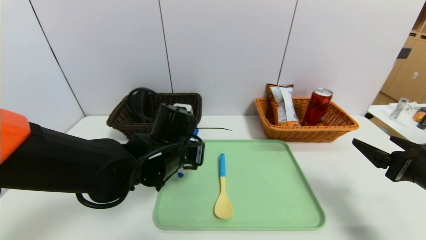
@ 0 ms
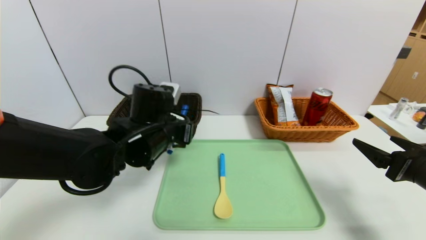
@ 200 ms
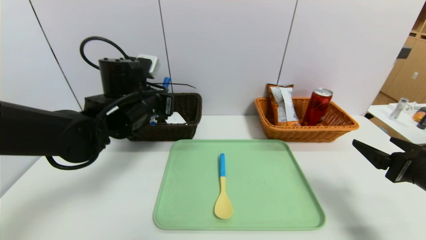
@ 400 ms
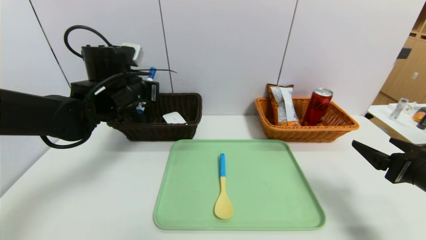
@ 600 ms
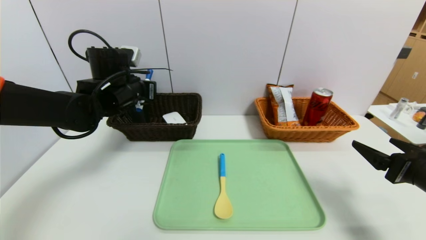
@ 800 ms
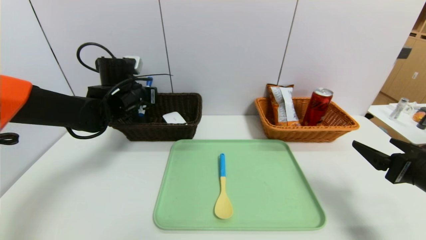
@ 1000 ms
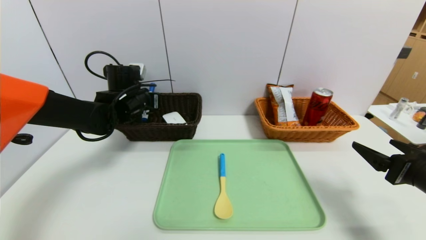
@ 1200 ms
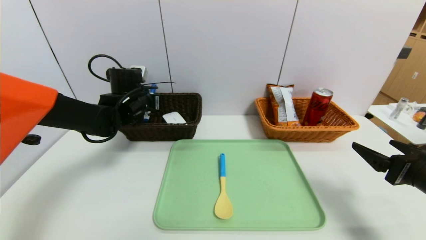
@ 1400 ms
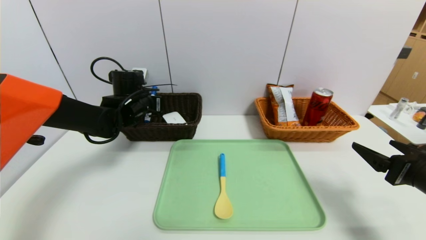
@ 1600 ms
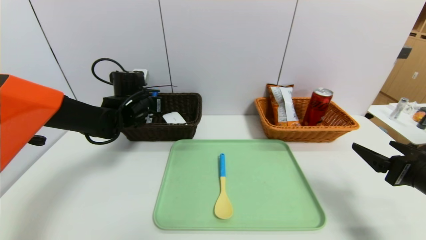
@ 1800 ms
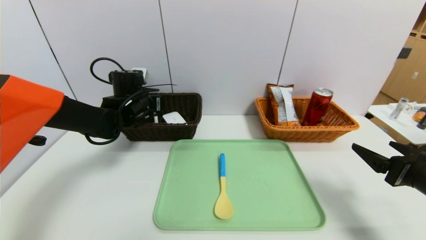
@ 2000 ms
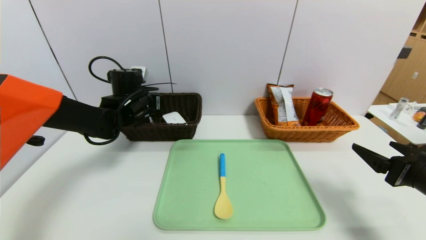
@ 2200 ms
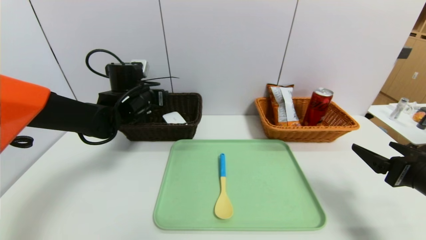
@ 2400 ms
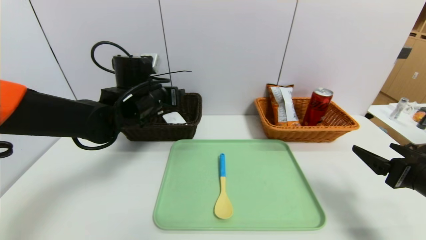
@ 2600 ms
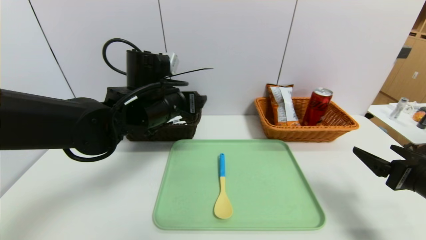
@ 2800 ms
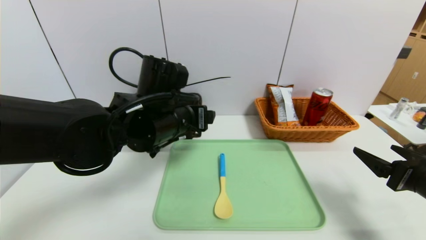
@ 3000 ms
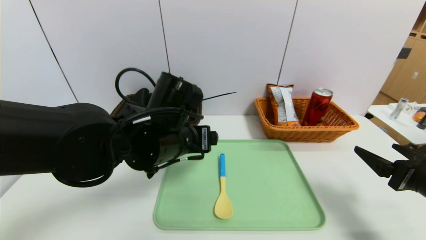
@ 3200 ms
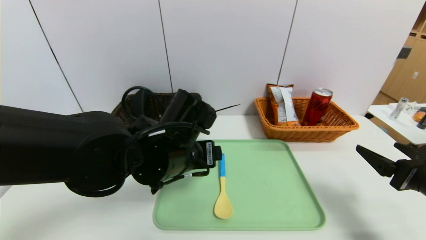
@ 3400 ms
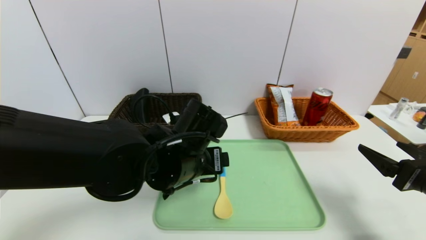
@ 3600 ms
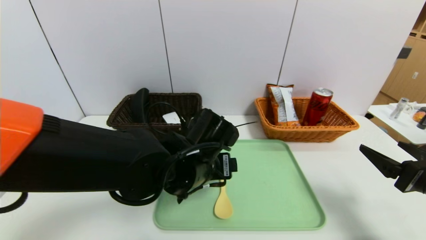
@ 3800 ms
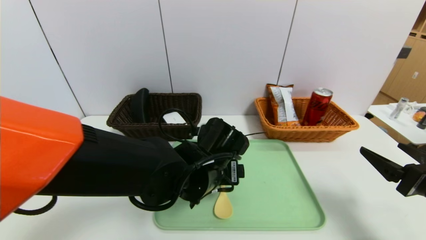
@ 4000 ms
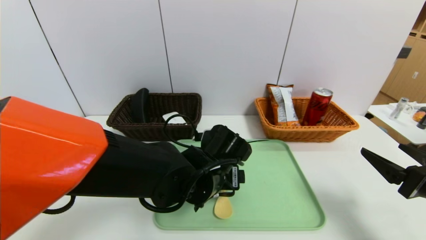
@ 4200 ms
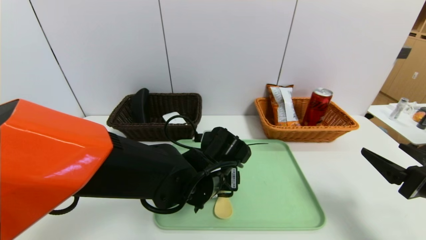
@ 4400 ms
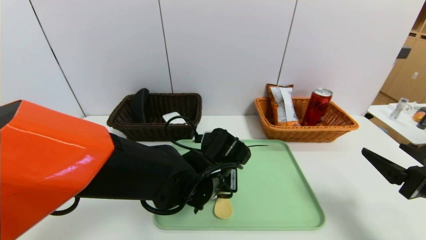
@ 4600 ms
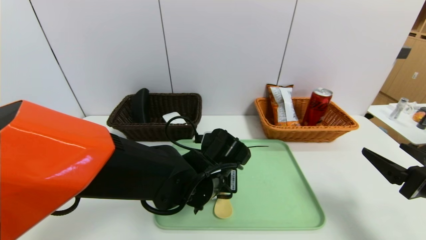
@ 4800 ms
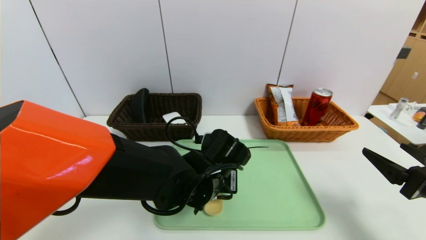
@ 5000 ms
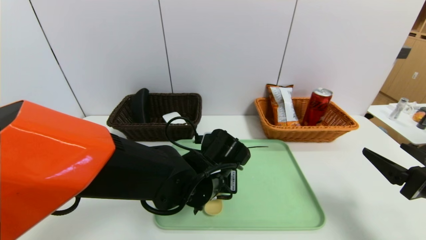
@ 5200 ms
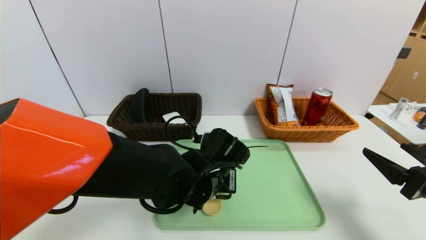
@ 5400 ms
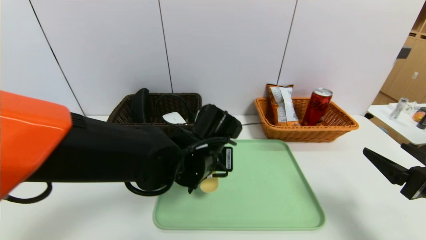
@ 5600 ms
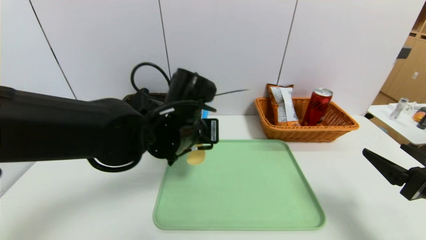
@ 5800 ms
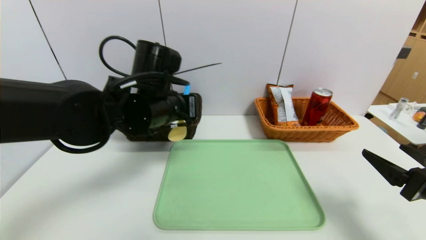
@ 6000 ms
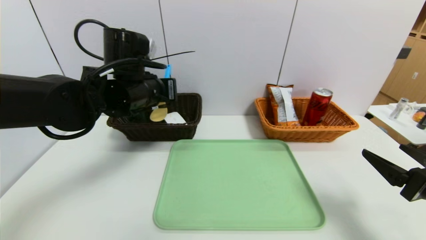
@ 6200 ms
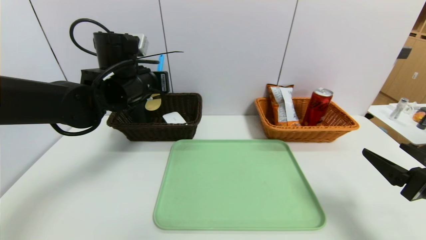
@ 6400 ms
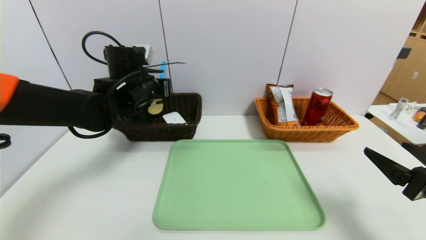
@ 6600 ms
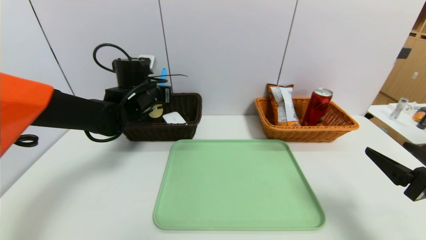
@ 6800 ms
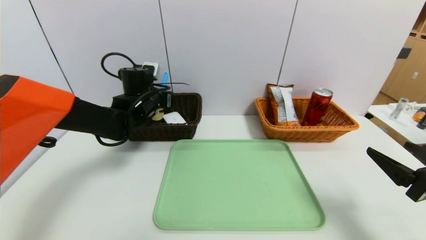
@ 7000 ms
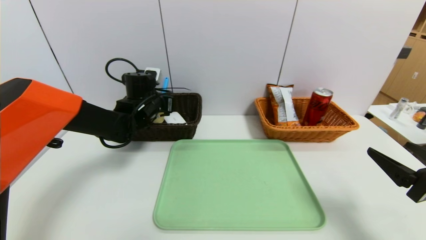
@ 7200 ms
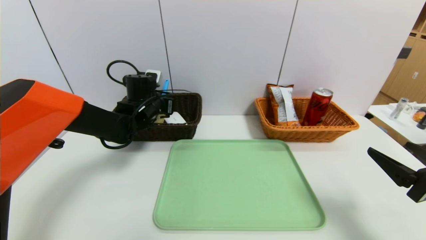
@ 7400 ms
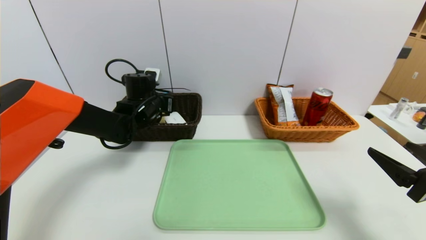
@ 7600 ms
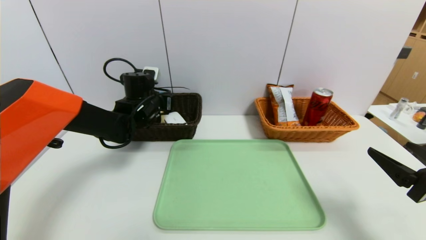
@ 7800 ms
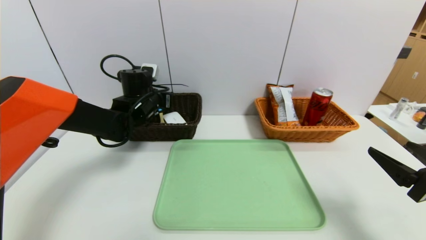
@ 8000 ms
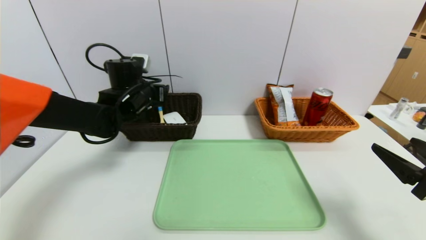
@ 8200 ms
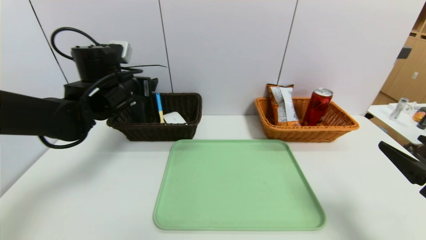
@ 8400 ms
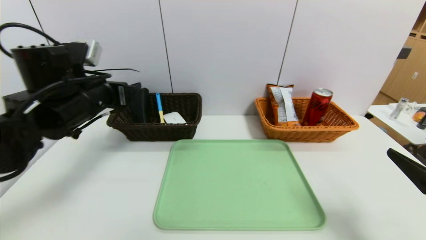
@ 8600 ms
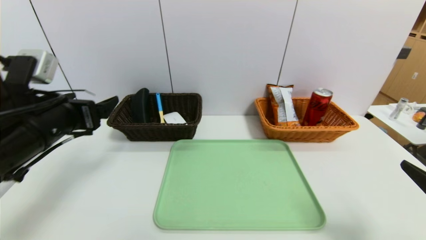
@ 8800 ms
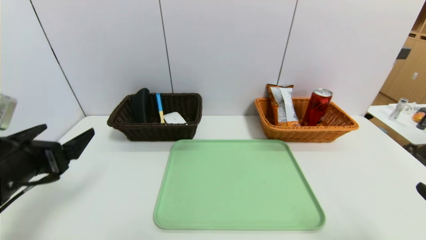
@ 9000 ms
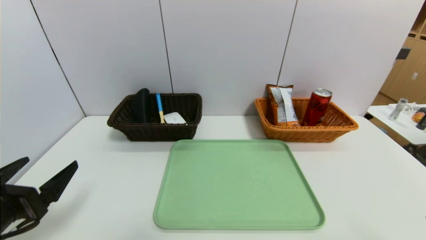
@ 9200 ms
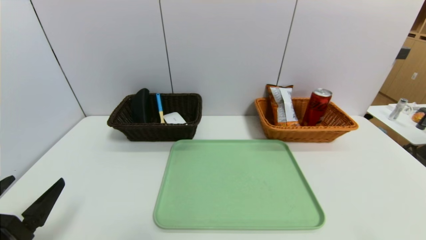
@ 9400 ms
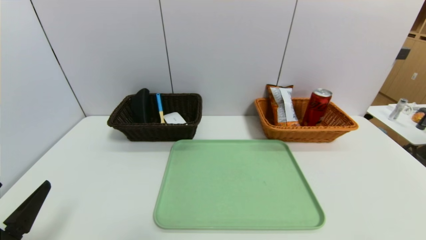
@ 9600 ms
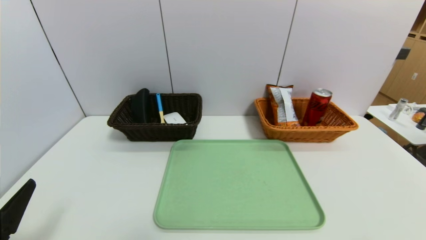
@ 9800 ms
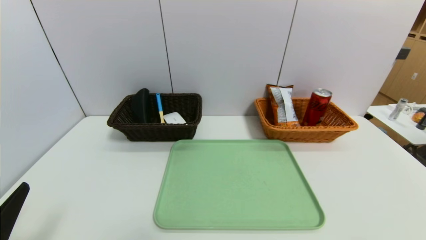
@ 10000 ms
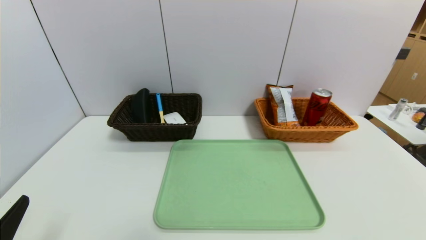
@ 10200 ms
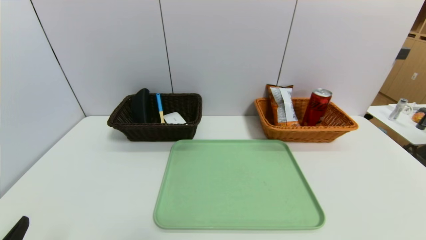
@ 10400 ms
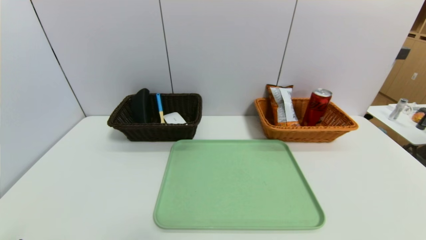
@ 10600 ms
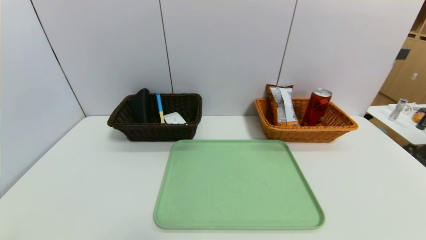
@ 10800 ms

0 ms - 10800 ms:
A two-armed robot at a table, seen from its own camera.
Task of the whole recording: place the food in the right basket with the right gripper, and place the non food items in the left basket with the left gripper.
Step, 0 ms - 7400 ms: Grasp the spoon and put it in the left basket.
0 ms - 1600 ms: The left gripper heads forward and to the left, covering approximately 20 cm.
1600 ms - 3000 ms: The left gripper goes approximately 20 cm backward and to the right, and opens up.
3000 ms - 4600 ms: The left gripper is displaced downward and to the right by approximately 15 cm, and closes its fingers.
4600 ms - 6200 ms: The left gripper heads upward, to the left and forward, covering roughly 20 cm, and closes up.
6200 ms - 7800 ms: The left gripper shifts roughly 15 cm forward and downward, and opens.
7800 ms - 9200 ms: The right gripper shifts roughly 10 cm backward; the left gripper goes some 30 cm backward, and opens its fingers.
9200 ms - 10800 ms: The left gripper travels backward by roughly 10 cm.

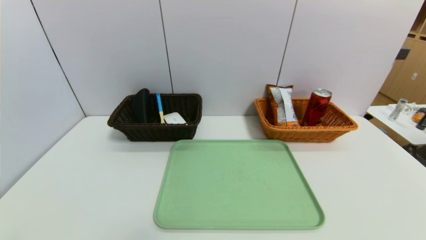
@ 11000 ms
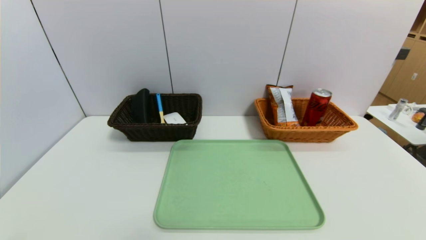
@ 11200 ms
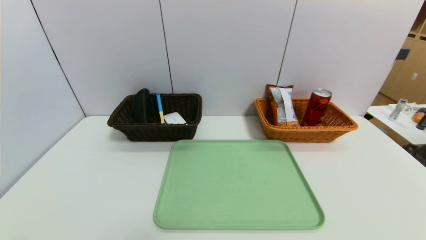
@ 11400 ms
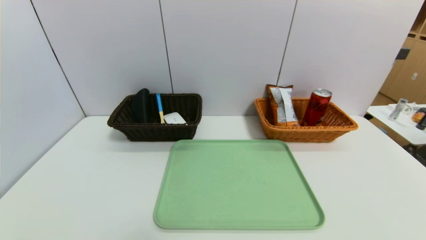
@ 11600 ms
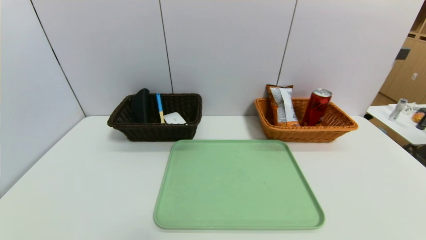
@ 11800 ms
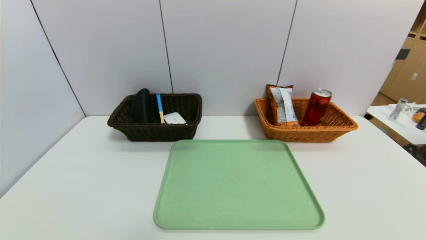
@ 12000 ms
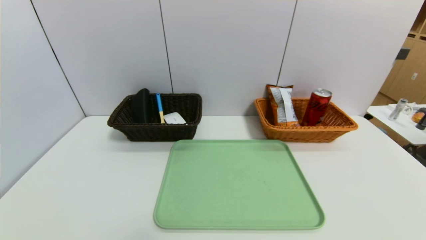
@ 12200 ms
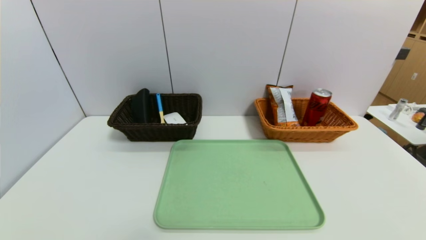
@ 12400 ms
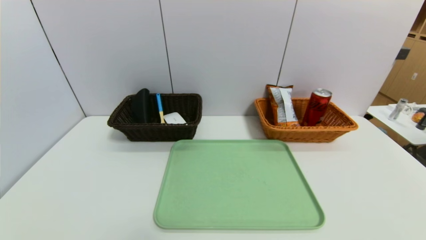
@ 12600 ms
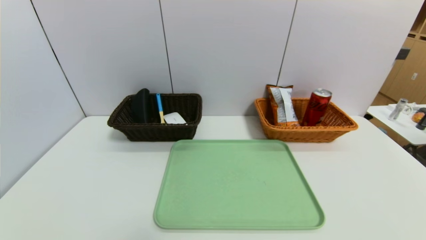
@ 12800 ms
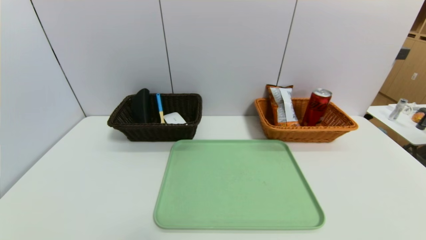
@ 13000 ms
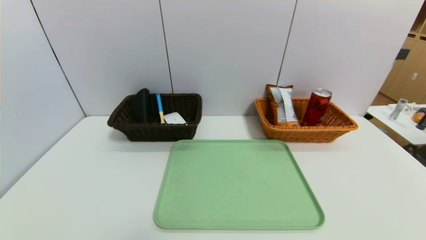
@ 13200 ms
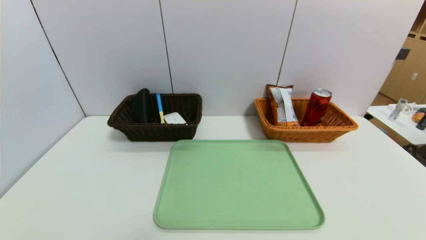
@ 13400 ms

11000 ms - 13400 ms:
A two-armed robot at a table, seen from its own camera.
Task of the whole recording: place the food in the right basket with the right gripper, and place the non food items in the left basket with the left gripper.
12200 ms - 13400 ms: Both grippers stay put.
